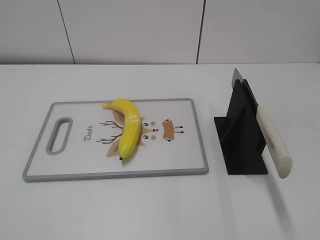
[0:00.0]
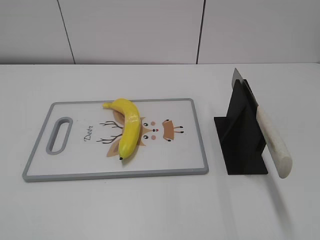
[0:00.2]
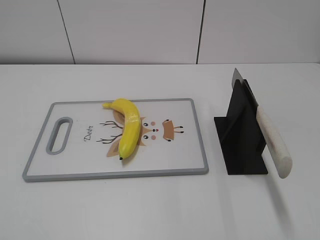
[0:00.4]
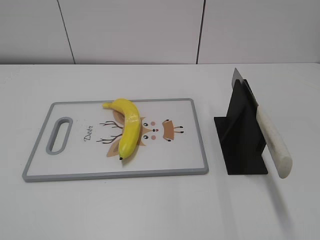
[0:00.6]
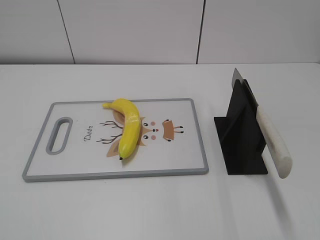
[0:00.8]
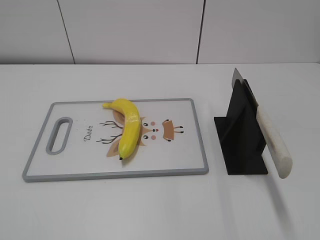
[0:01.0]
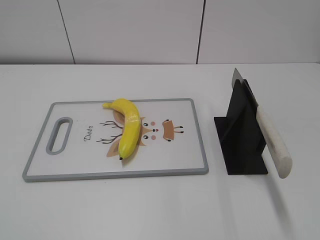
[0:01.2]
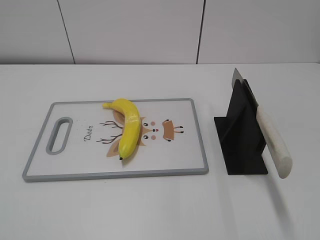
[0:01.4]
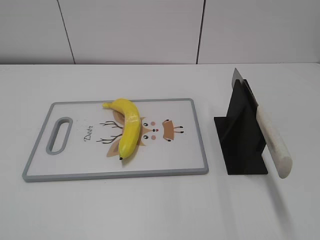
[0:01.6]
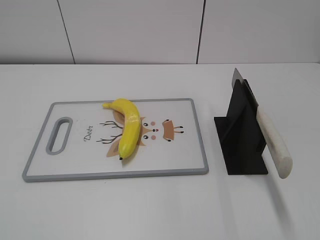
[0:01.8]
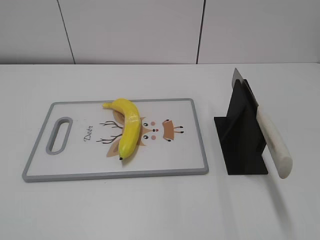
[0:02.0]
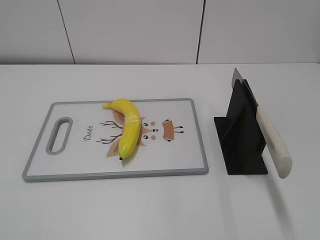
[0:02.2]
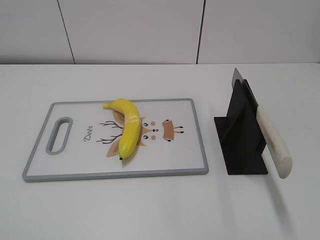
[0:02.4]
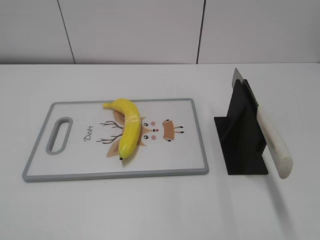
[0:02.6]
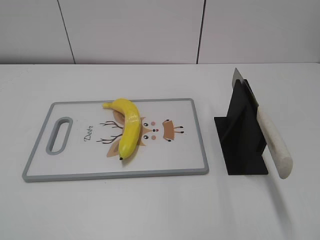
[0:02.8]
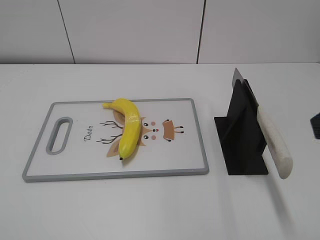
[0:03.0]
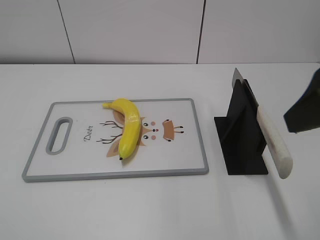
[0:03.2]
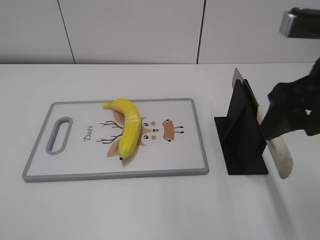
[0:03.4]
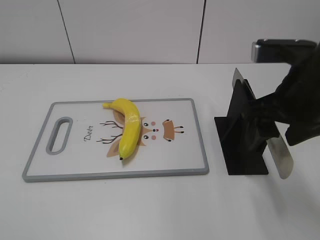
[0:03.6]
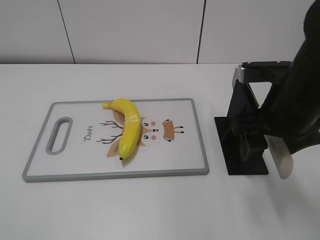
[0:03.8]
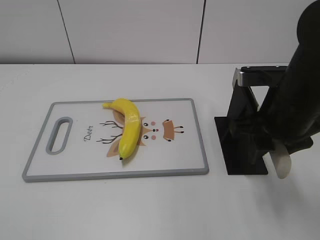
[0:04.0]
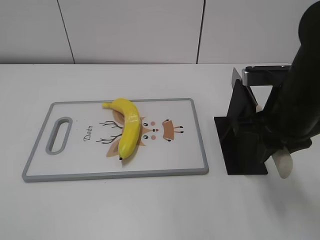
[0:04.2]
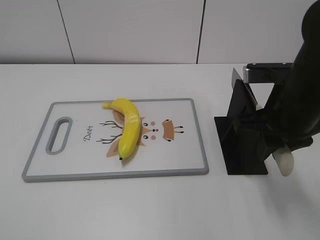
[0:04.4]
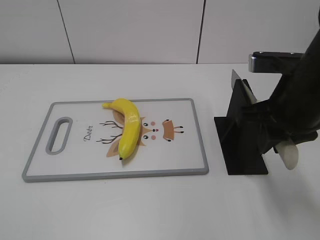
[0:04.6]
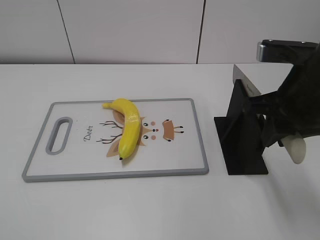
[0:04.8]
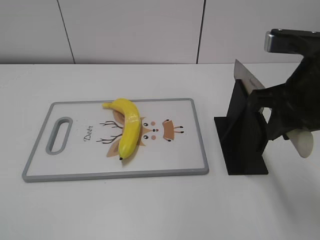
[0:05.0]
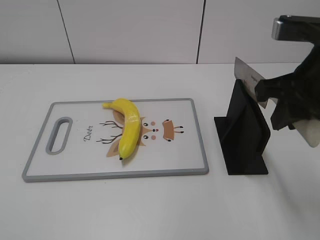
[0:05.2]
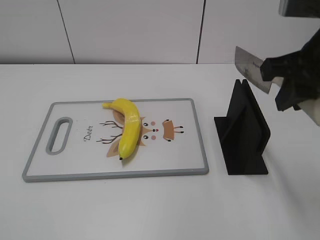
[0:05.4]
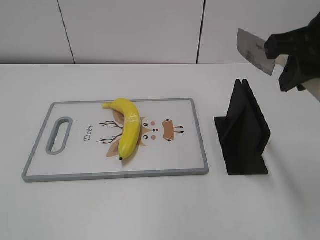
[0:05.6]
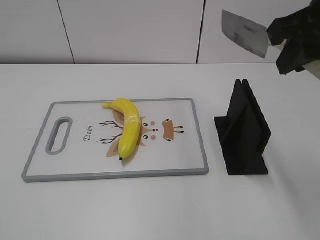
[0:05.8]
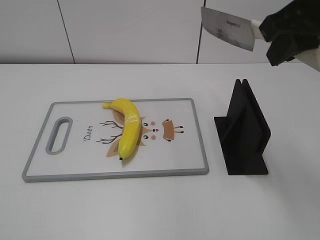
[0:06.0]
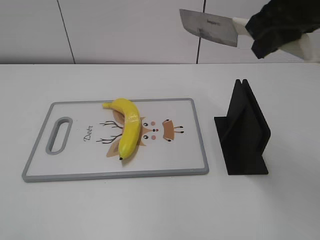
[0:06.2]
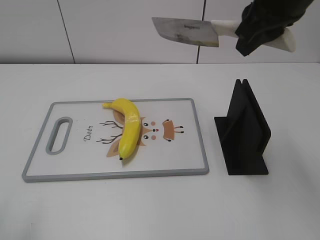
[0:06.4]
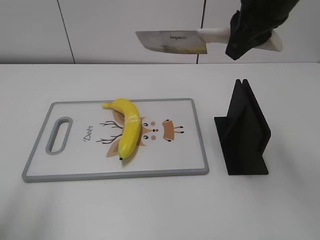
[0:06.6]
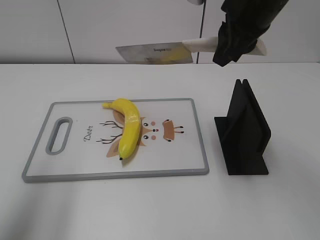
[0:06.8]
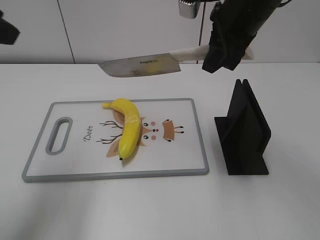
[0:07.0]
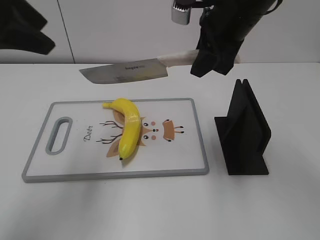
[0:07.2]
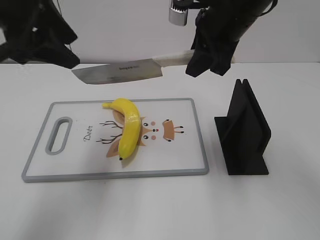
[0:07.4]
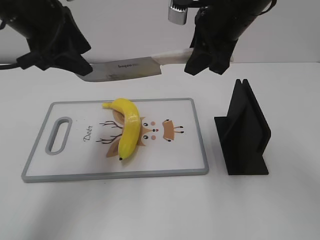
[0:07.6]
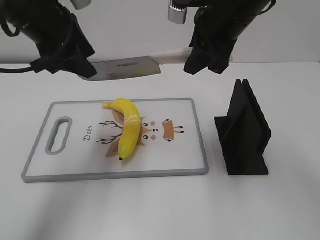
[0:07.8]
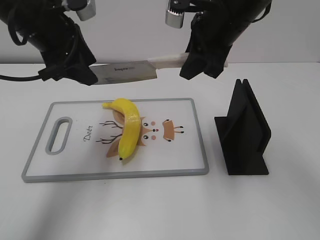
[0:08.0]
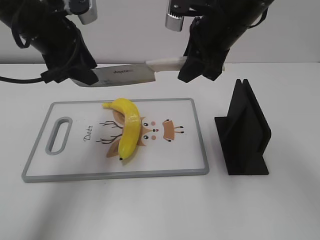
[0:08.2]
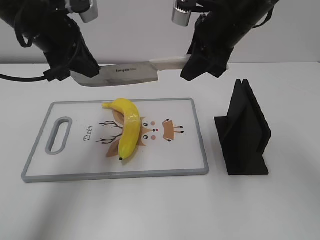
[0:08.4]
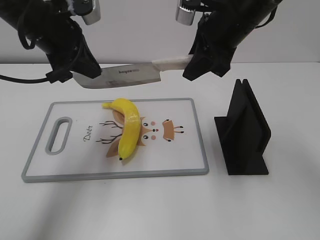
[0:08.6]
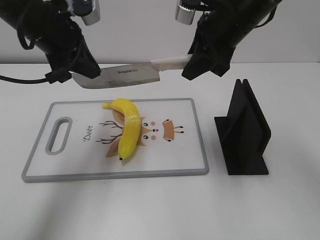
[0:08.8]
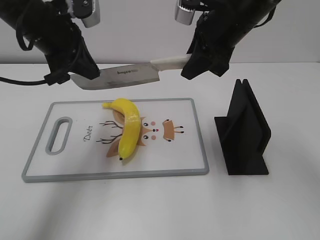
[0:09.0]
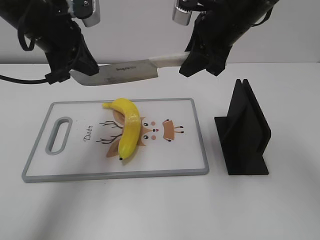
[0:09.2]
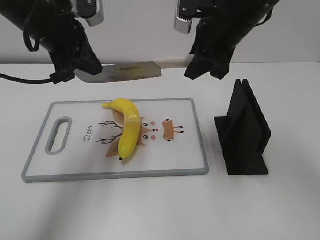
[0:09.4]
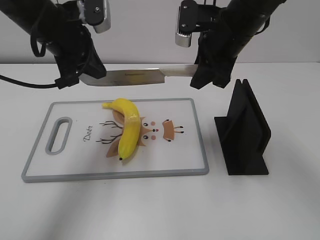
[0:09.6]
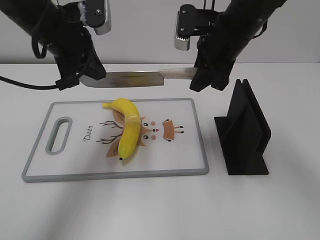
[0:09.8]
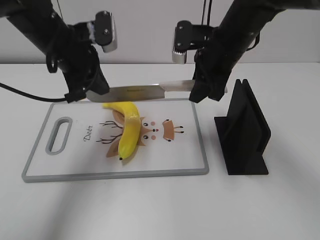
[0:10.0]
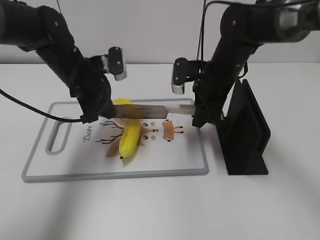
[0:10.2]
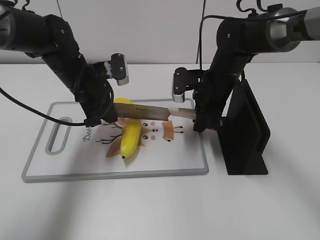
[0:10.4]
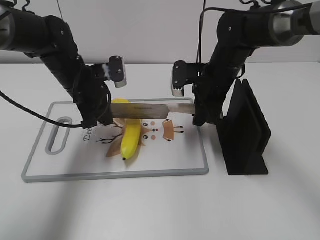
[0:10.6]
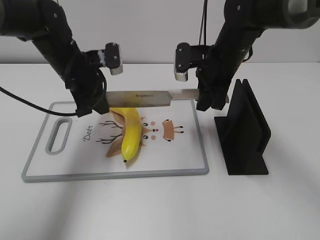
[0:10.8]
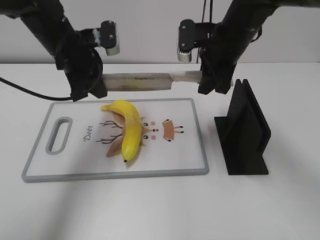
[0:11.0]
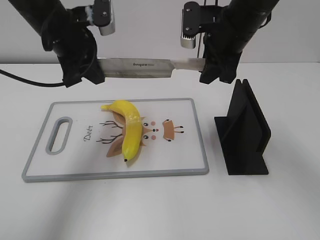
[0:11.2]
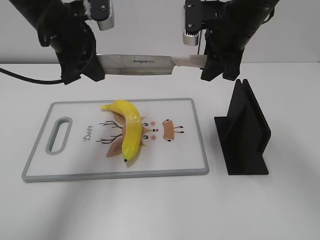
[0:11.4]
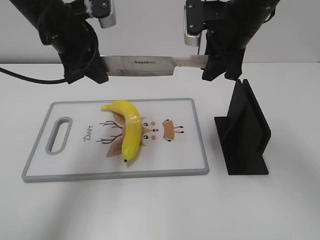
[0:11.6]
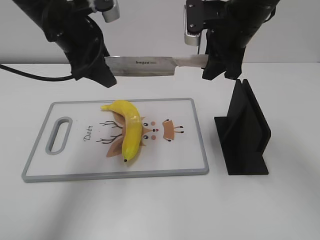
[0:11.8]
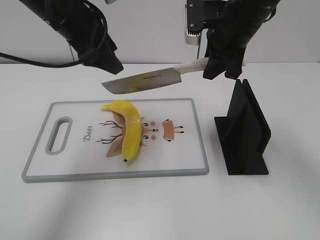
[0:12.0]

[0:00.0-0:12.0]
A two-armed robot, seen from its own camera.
Task of the whole recording: cut plastic banana.
Step, 0:00.0 to 0:05.0: Grab the knife handle with your right hand.
Step, 0:05.2 to 0:10.4: Lift the knife with your right hand.
0:03.0 to 0:04.4: The right gripper is displaced downward, forward and to the left by roughly 20 cm, and closes up.
0:04.4 to 0:06.0: The right gripper goes some 15 cm upward.
0:06.0 to 0:07.6: The right gripper travels forward, to the left and downward by about 15 cm. The left gripper shifts roughly 35 cm forward and to the right.
0:07.6 to 0:09.0: The left gripper ends up about 5 cm from where it was, and closes up.
0:09.0 to 0:10.4: The two grippers go roughly 15 cm downward.
0:10.4 to 0:12.0: Both grippers travel together upward, approximately 15 cm. The left gripper opens its fingers.

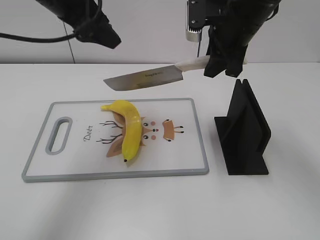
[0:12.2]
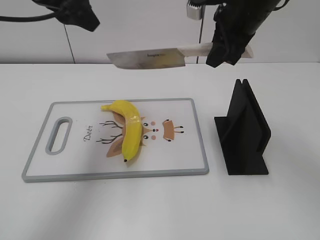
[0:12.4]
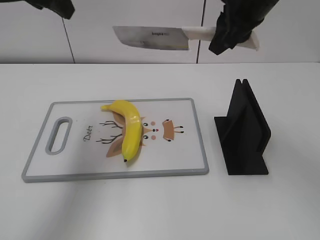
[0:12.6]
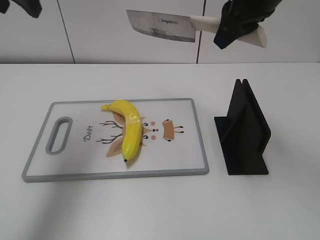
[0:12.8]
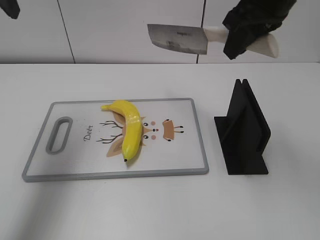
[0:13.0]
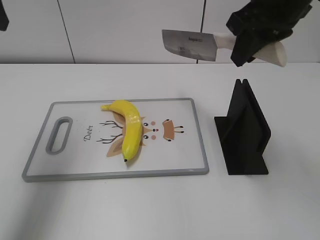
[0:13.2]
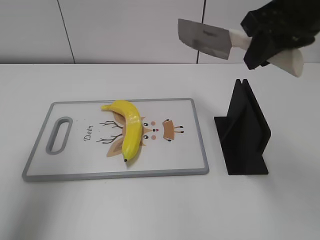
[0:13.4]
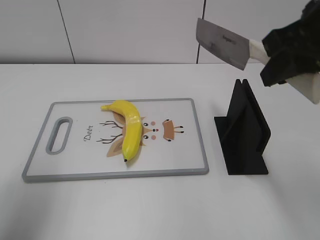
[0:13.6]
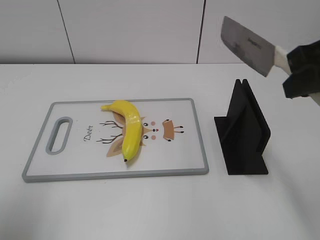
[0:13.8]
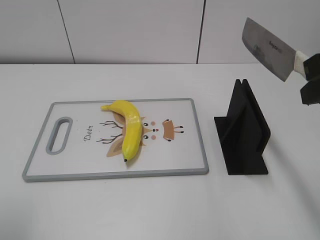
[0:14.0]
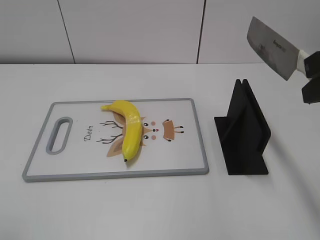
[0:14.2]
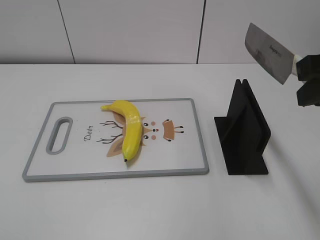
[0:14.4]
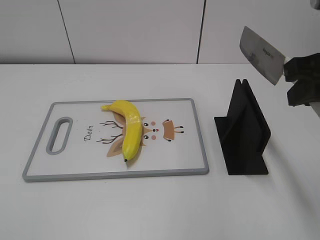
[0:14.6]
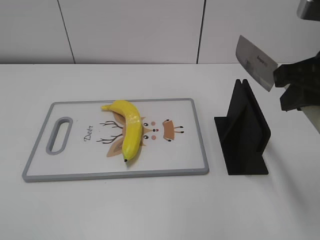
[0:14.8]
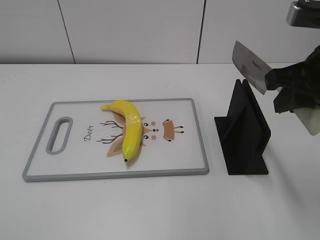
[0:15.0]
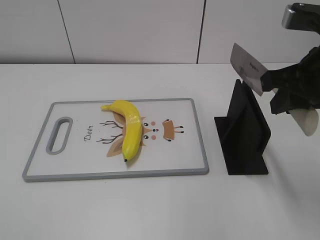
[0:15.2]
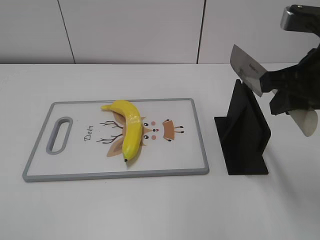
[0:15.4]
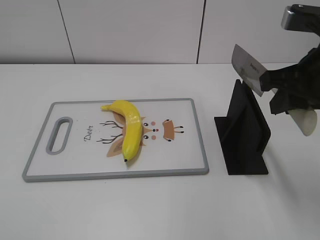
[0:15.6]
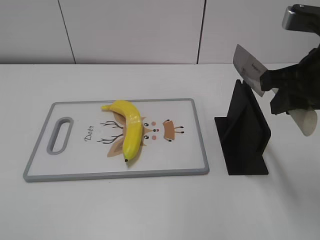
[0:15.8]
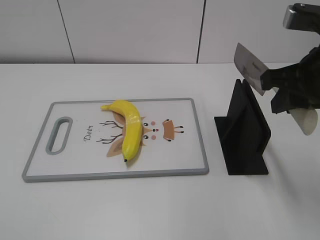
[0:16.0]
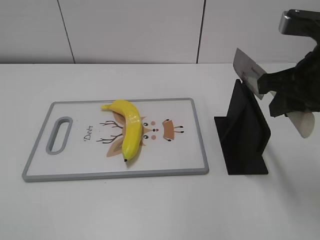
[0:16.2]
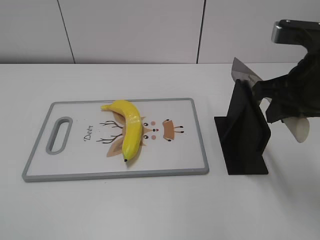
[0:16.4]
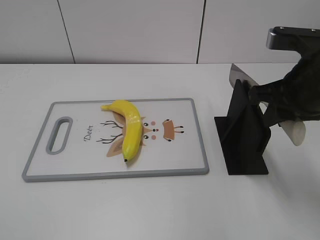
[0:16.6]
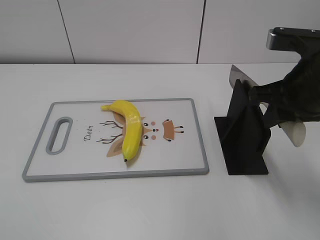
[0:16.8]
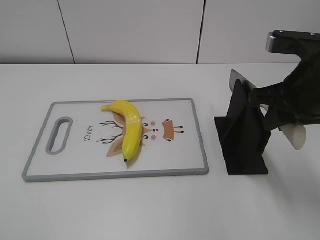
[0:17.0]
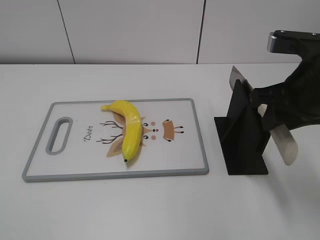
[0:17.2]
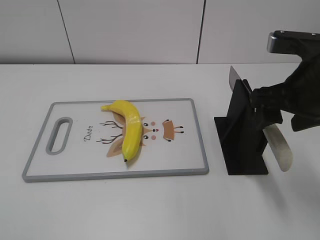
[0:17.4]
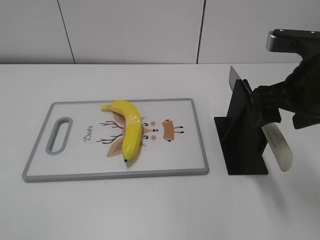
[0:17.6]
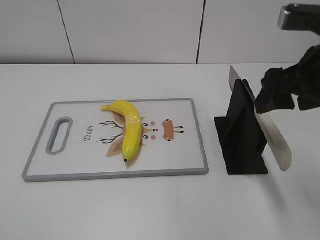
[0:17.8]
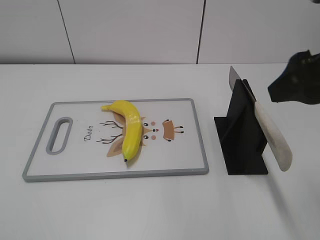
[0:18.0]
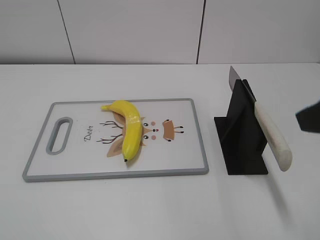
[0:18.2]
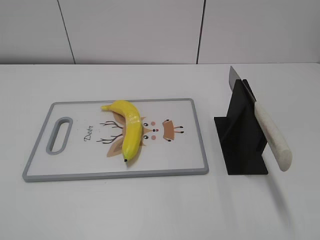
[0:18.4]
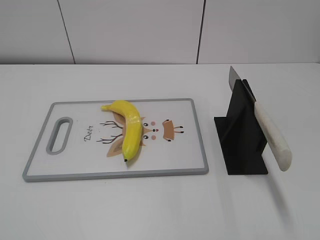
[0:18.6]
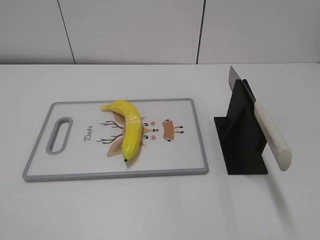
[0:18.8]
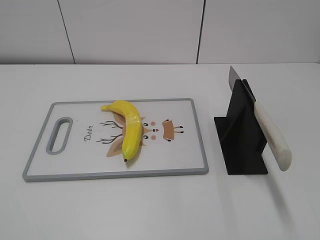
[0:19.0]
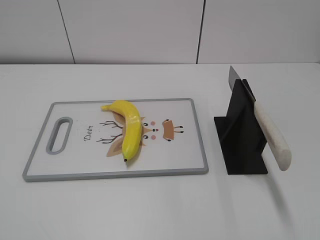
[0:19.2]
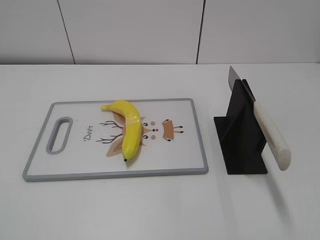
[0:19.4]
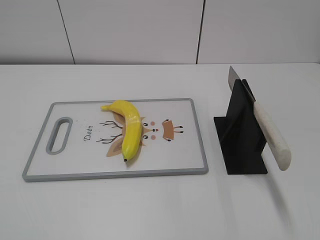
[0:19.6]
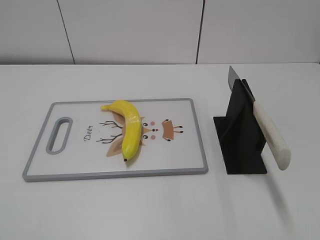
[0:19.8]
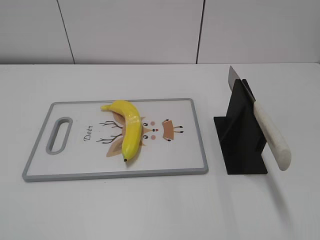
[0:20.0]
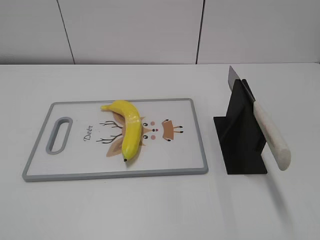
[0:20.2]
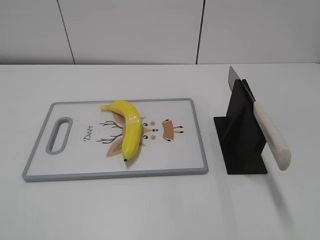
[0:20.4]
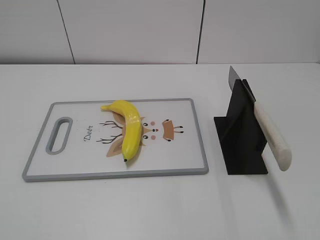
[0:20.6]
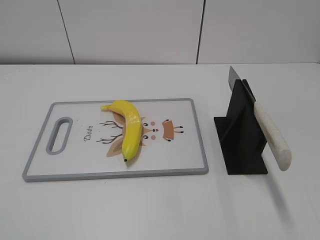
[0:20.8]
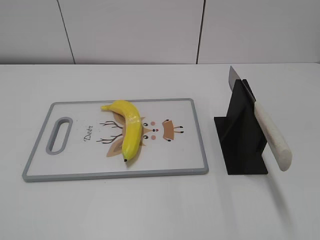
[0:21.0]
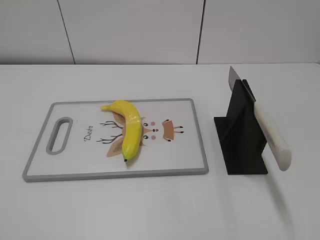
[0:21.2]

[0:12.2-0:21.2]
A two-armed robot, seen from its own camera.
Task of the whole recording: cut plastic banana.
Step, 0:13.4 to 0:14.4: Lift the knife with your right hand.
Step, 0:14.6 to 0:21.2: Place the knife on the storage rack with your right hand.
0:12.2 to 0:13.8: The left gripper travels backward and to the left by some 25 cm. Meanwhile the right gripper travels backward and to the right by about 20 cm.
0:13.8 to 0:15.2: The left gripper is displaced backward by some 15 cm. Meanwhile the right gripper ends up approximately 5 cm from where it was.
0:15.2 to 0:16.6: The grippers move only a little.
0:16.6 to 0:18.2: The right gripper heads backward and upward, covering some 10 cm, and opens.
0:18.2 to 0:19.8: The right gripper is displaced backward and to the right by about 20 cm.
